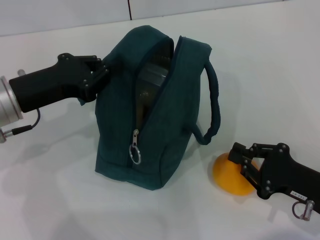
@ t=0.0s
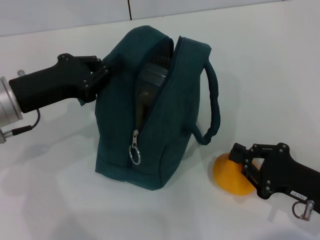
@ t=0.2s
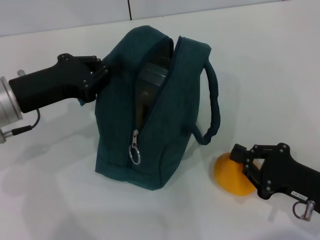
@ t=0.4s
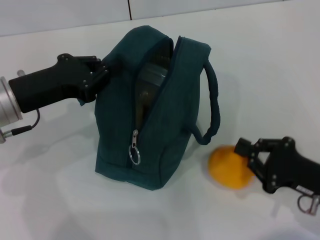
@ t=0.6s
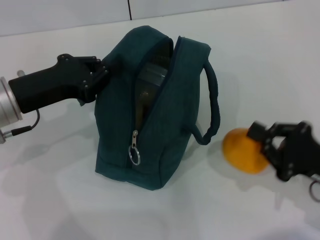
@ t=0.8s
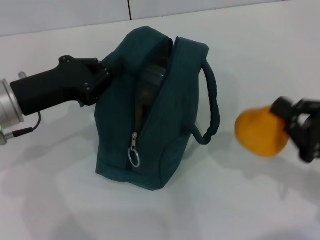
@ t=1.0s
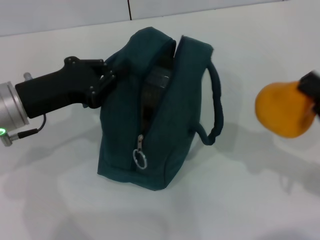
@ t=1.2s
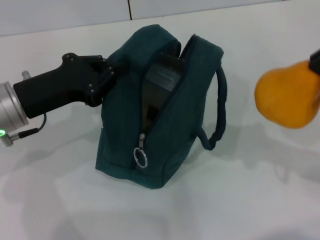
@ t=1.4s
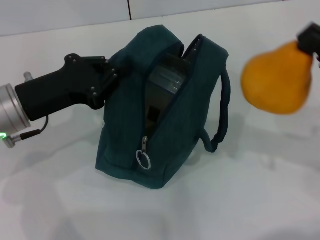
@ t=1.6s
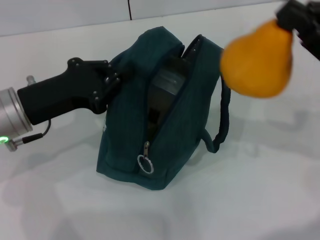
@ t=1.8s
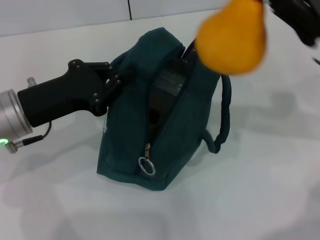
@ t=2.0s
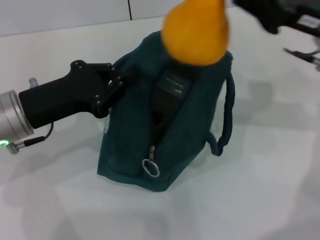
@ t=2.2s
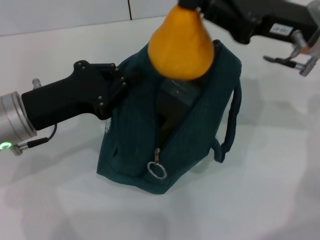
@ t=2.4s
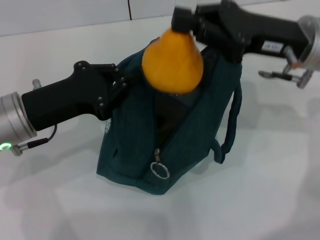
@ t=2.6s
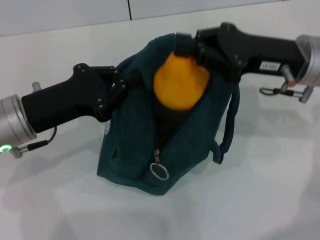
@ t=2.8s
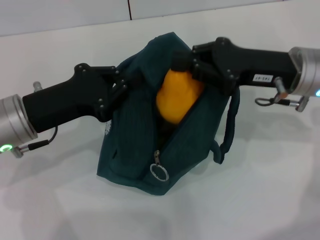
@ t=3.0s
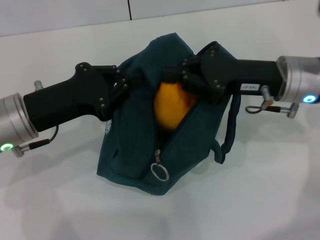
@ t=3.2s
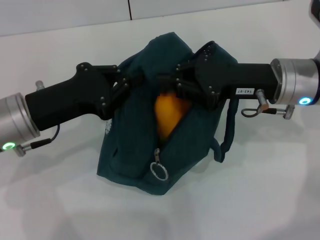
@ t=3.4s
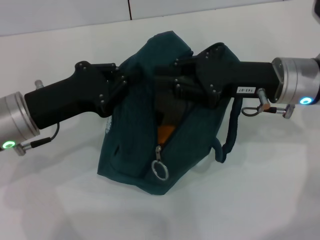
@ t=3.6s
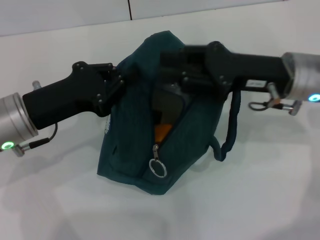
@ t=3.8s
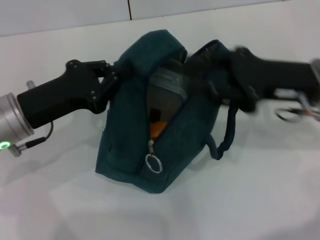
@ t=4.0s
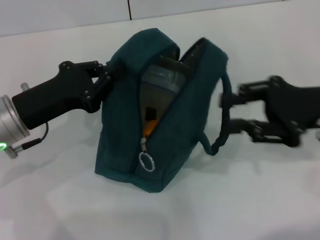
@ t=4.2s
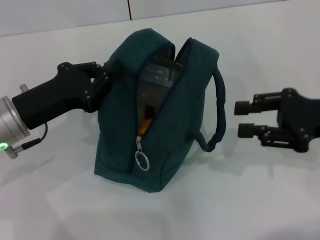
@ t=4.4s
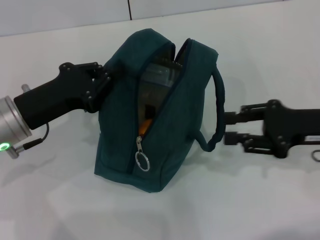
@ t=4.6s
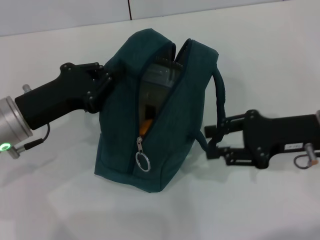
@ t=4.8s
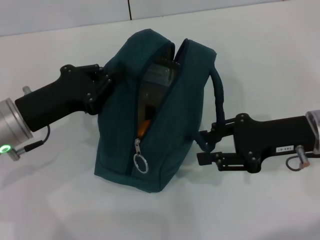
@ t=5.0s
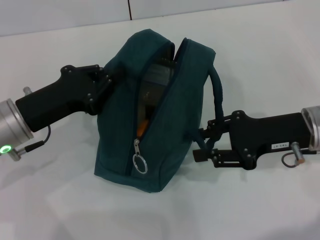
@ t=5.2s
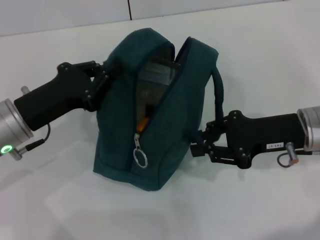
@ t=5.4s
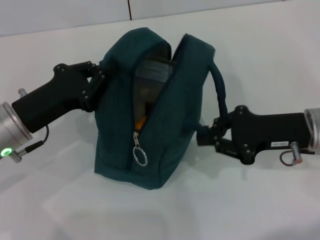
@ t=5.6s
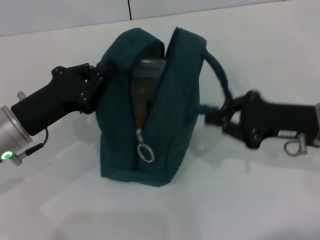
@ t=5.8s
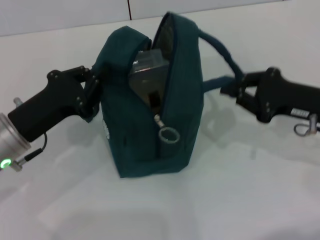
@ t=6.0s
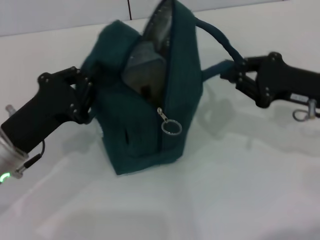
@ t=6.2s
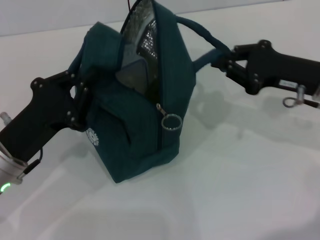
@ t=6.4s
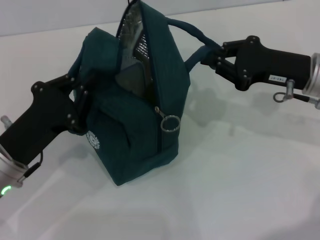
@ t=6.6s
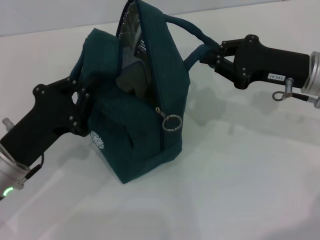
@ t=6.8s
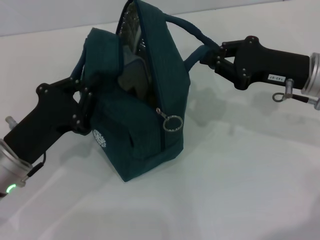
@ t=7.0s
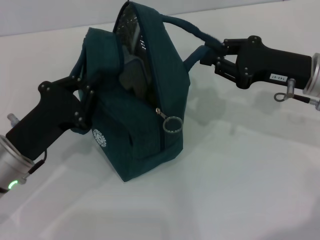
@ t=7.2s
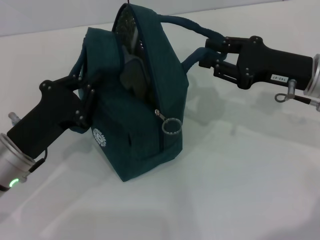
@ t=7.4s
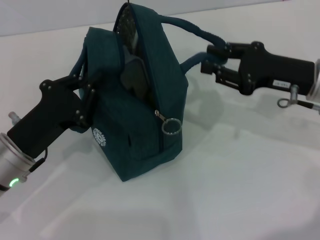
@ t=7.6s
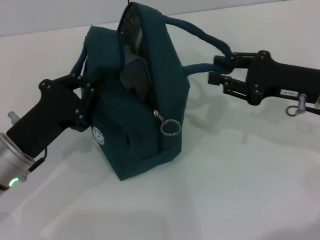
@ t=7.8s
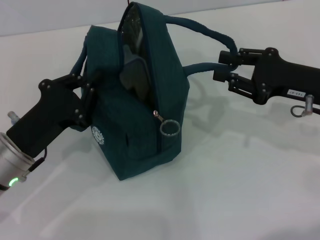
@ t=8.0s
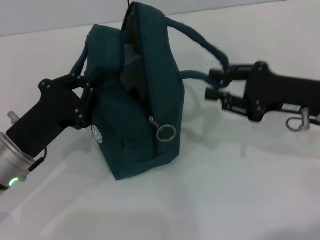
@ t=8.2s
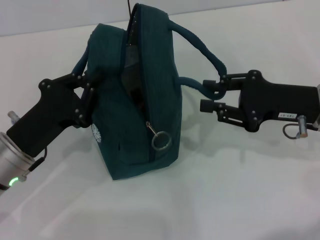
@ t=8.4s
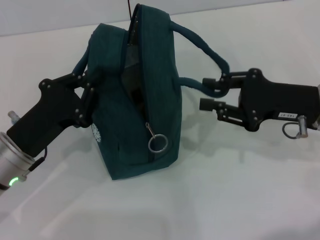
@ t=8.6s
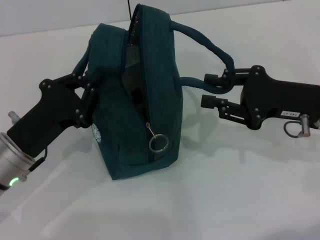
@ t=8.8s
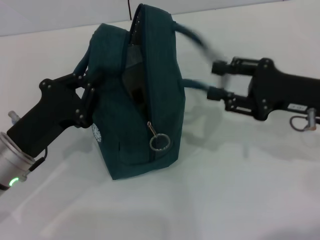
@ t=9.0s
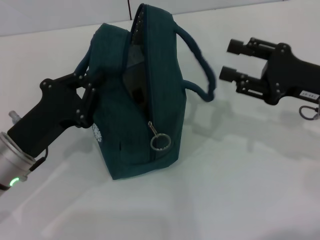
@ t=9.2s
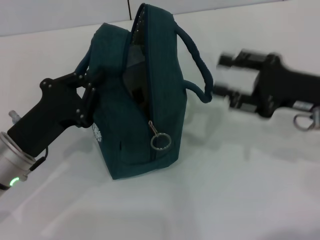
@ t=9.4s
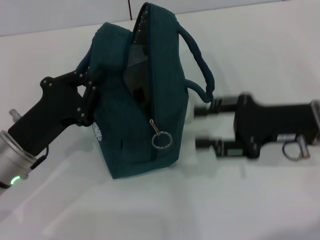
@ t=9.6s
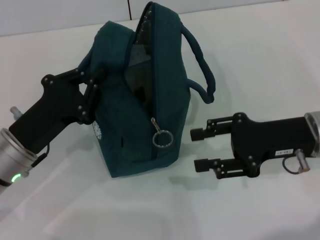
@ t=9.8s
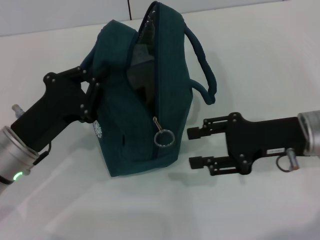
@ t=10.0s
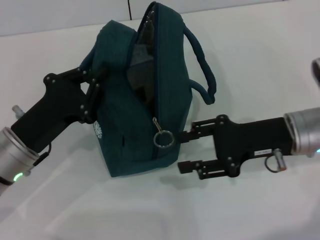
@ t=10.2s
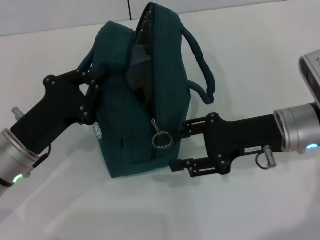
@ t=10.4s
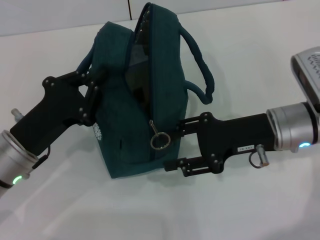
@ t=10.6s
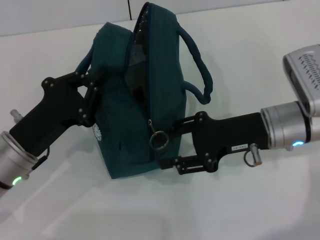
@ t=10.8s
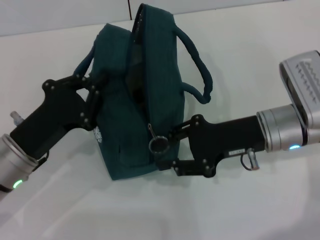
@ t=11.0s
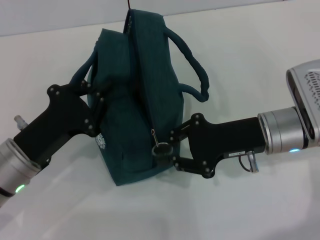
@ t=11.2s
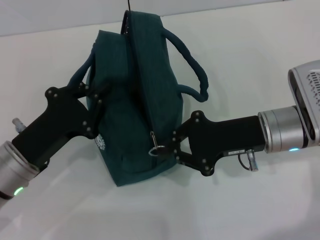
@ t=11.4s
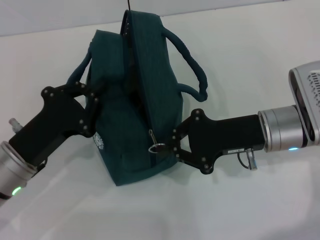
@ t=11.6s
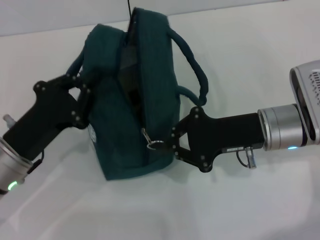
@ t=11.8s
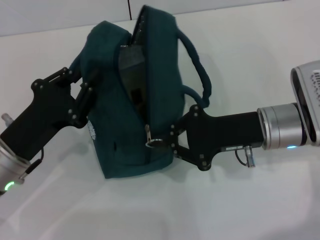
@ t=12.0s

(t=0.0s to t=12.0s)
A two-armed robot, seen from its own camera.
Step, t=3.8s - t=8.8s: Hold the lunch bag with your right hand.
t=0.0s - t=1.6s: The right gripper moves upward and forward, about 15 cm.
t=1.6s - t=3.0s: The right gripper goes approximately 10 cm to the left and forward.
t=3.0s - t=4.4s: The right gripper heads to the right and backward, covering some 10 cm.
t=4.4s - t=6.0s: The right gripper closes its fingers.
t=7.6s - t=9.0s: There are only small adjustments of the grippers.
t=9.0s - t=10.4s: The right gripper moves to the left, roughly 5 cm.
t=10.4s - t=12.0s: The right gripper closes.

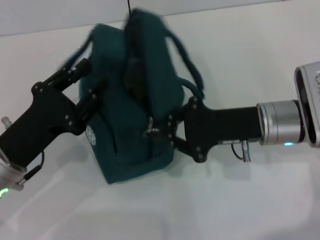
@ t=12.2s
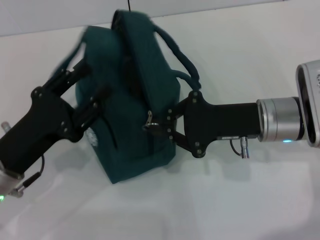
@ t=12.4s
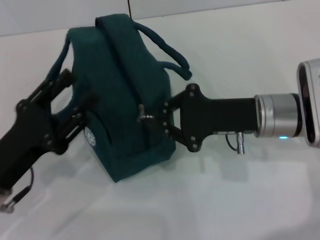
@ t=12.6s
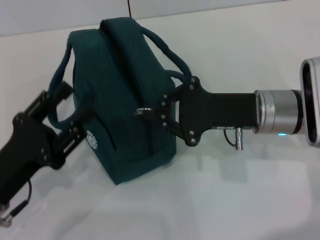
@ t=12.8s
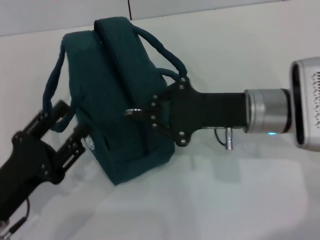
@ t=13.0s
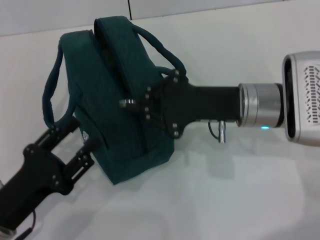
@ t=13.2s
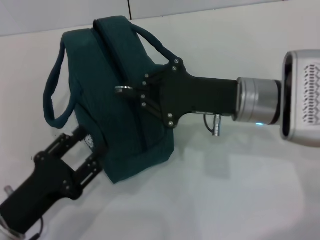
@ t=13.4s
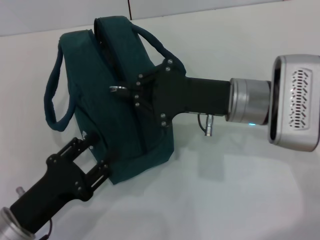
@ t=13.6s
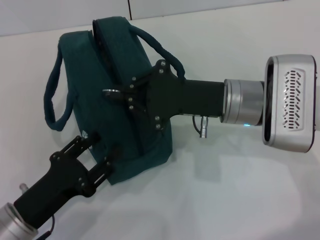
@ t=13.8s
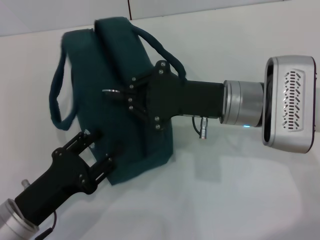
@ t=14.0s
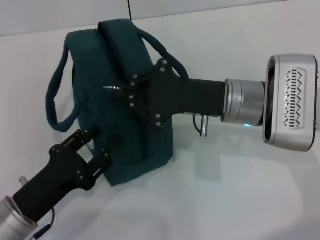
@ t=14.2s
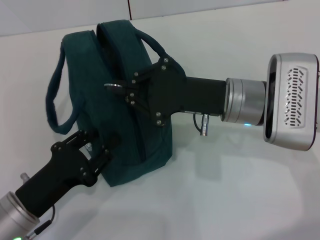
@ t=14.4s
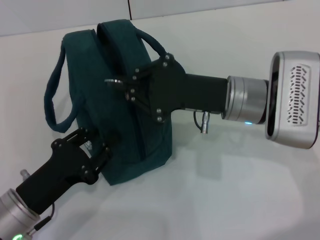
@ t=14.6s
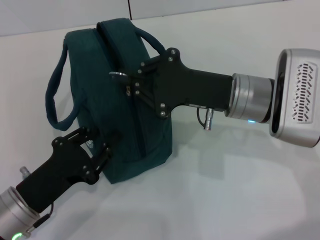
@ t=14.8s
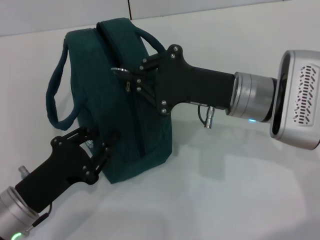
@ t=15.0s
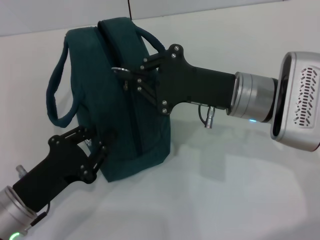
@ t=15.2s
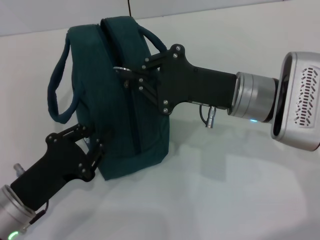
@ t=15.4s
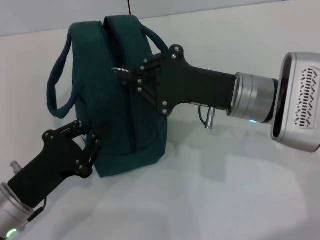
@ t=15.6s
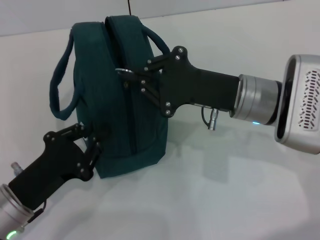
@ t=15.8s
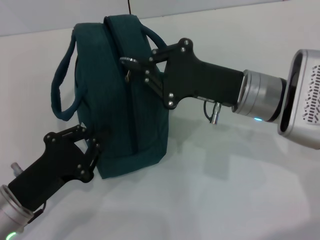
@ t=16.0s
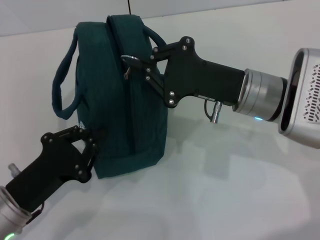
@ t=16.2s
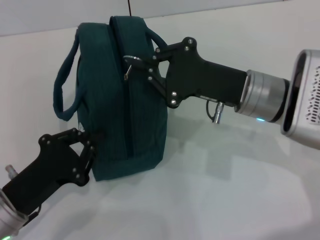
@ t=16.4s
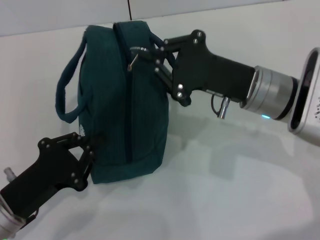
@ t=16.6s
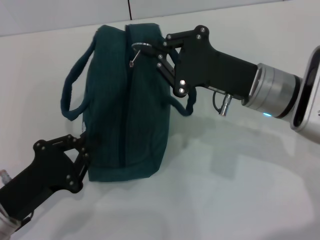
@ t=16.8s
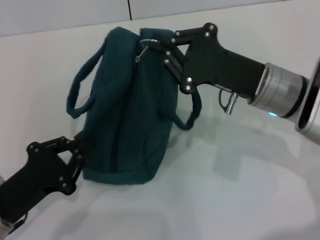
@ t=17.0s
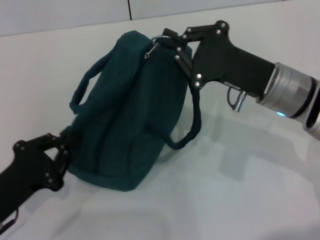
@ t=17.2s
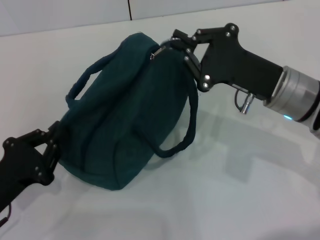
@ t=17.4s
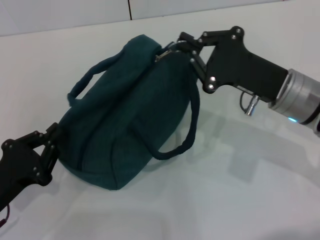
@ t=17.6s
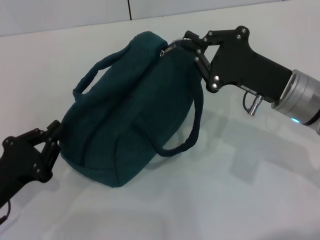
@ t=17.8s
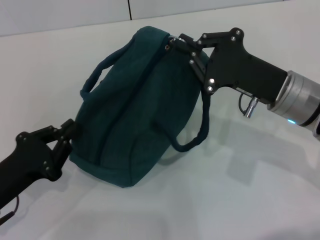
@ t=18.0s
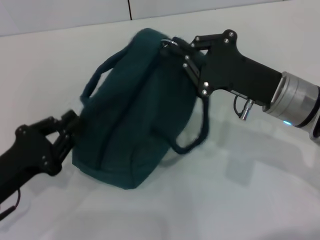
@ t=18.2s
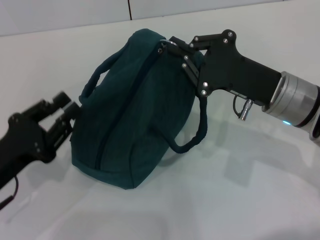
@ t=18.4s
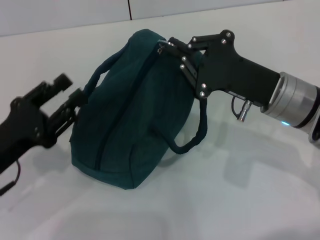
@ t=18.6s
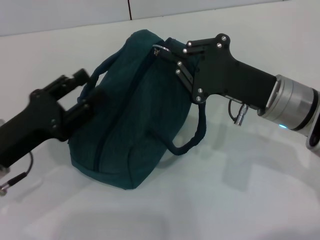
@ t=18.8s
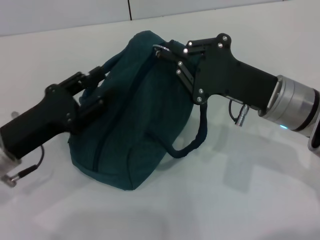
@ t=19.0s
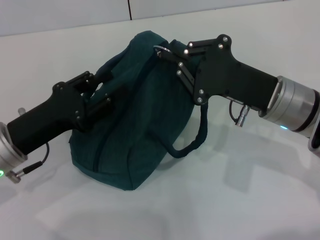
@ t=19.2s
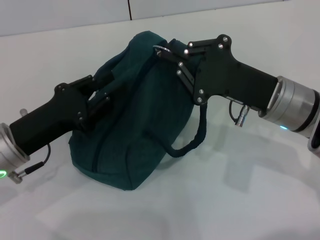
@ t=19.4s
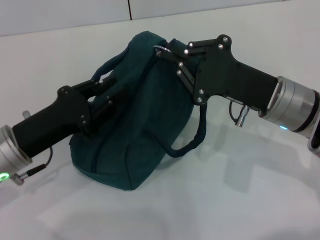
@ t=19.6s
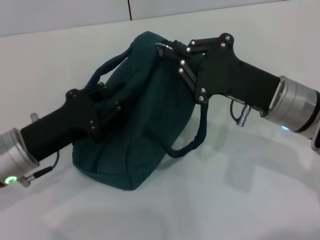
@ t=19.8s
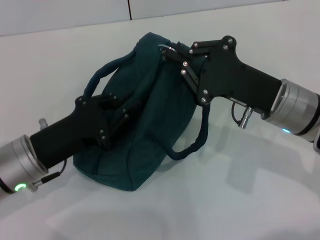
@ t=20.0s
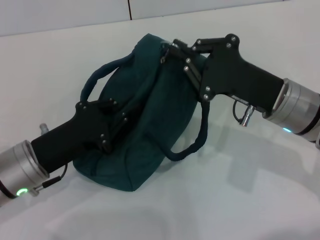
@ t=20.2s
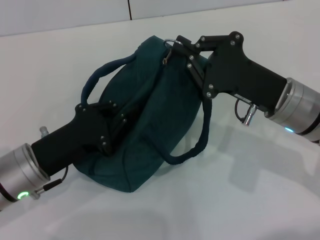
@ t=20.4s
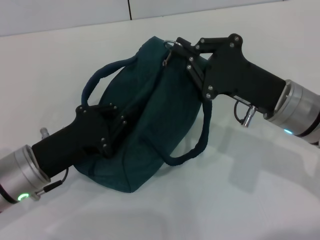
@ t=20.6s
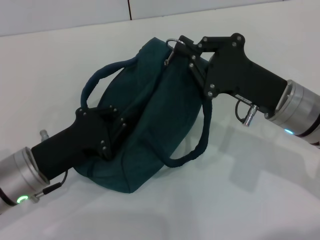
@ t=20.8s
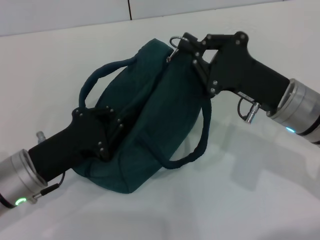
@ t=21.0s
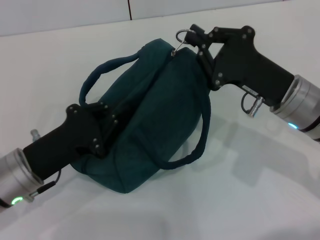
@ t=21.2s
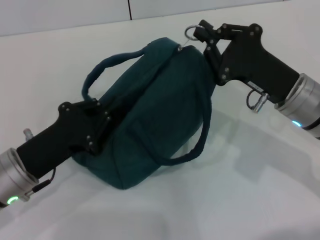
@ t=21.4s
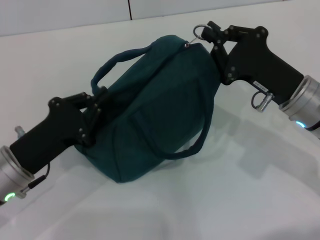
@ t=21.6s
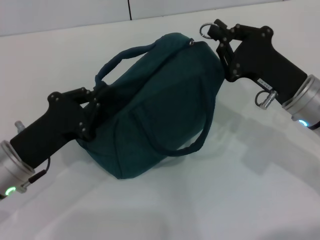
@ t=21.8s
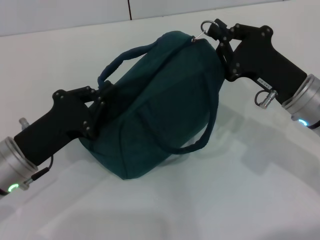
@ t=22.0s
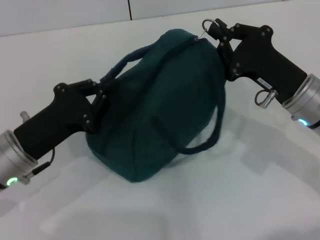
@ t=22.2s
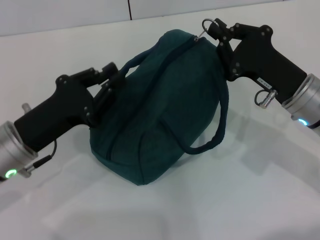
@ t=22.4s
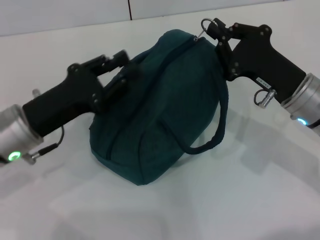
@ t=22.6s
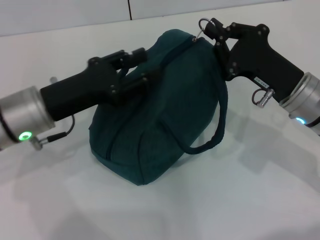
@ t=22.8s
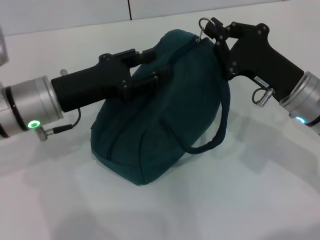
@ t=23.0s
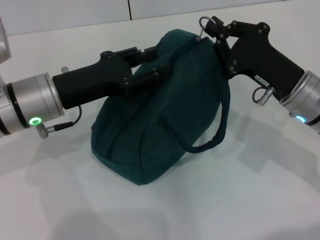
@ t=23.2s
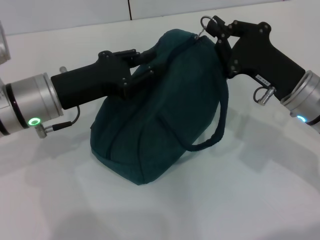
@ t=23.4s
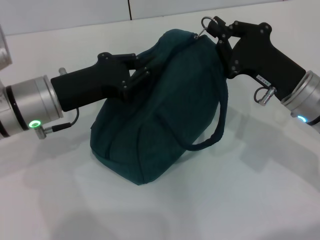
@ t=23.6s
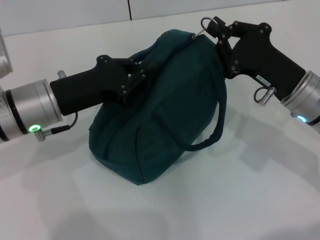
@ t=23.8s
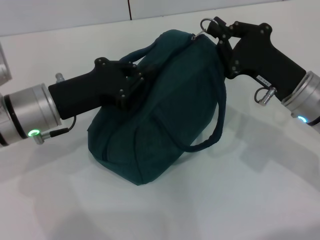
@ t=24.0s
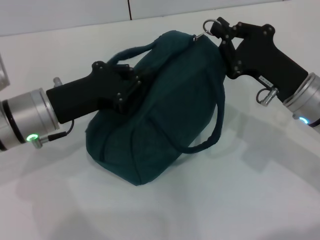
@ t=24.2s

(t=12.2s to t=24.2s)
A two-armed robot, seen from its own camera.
t=12.2s - t=13.8s: The right gripper shifts by approximately 5 cm. Meanwhile the left gripper travels backward and downward by about 10 cm, and opens.
t=13.8s - t=15.2s: The left gripper closes up.
t=15.2s - t=16.6s: There are only small adjustments of the grippers.
t=18.2s - t=19.8s: The left gripper goes about 10 cm forward and to the right, and opens and closes again.
t=19.8s - t=21.2s: The grippers make only small movements.
t=21.2s - t=22.6s: The left gripper shifts by roughly 5 cm.
t=22.6s - t=24.2s: The left gripper opens, then closes again.
